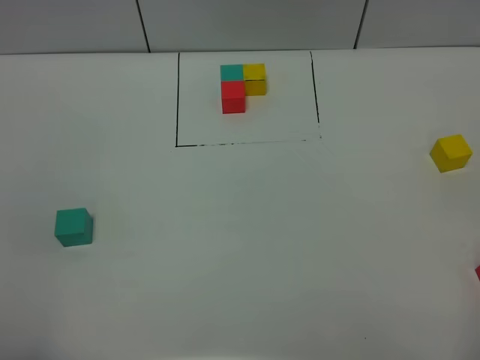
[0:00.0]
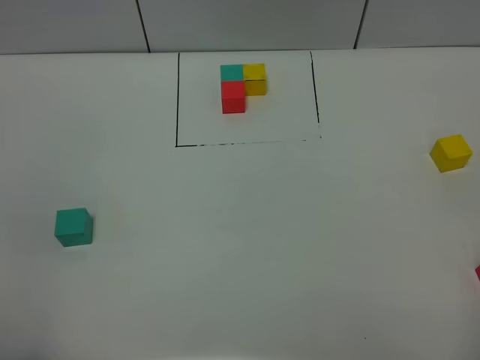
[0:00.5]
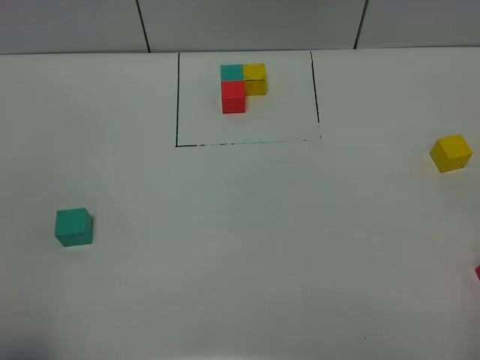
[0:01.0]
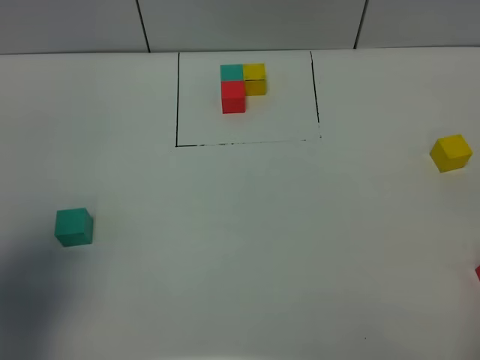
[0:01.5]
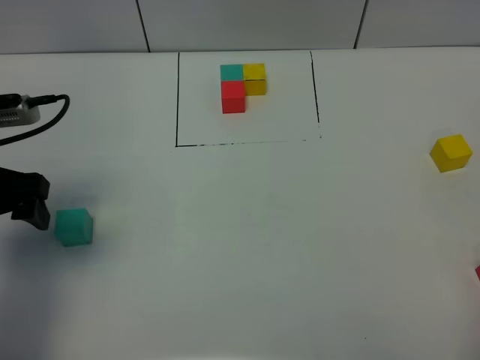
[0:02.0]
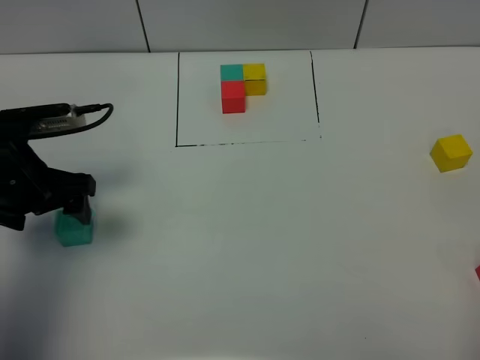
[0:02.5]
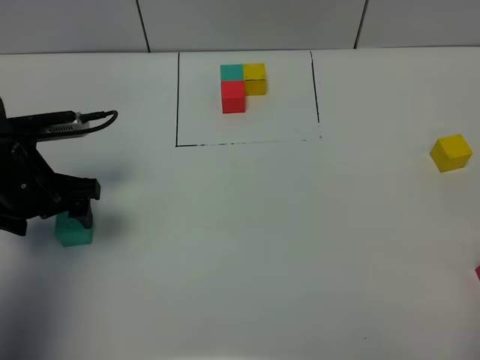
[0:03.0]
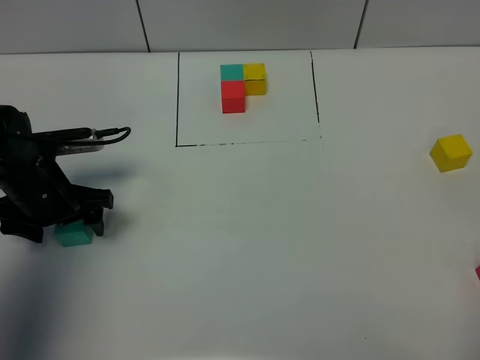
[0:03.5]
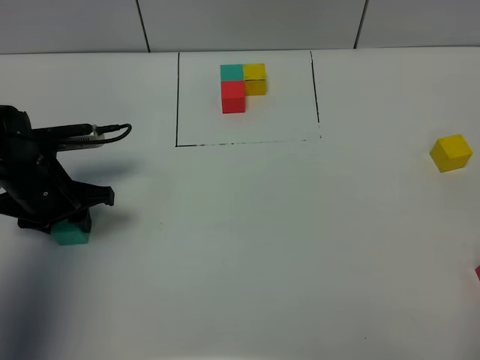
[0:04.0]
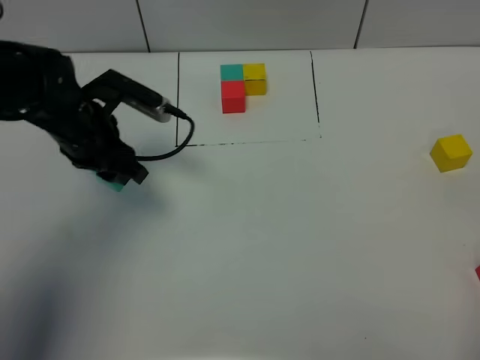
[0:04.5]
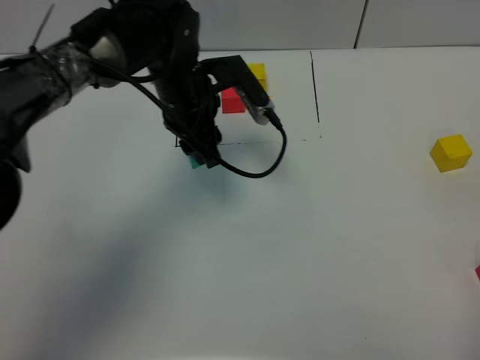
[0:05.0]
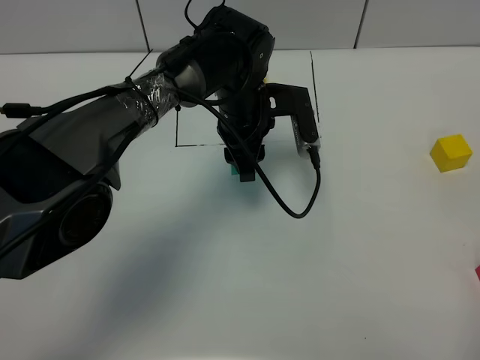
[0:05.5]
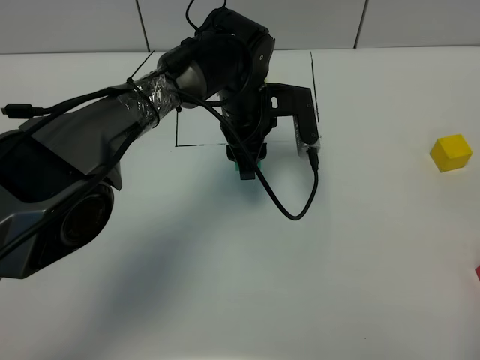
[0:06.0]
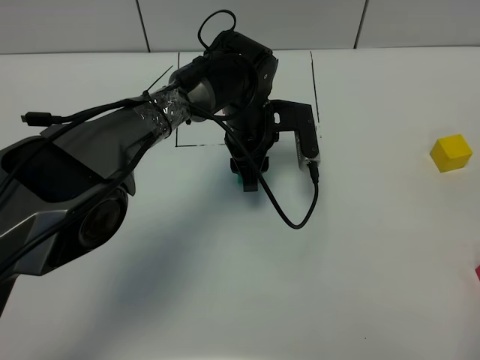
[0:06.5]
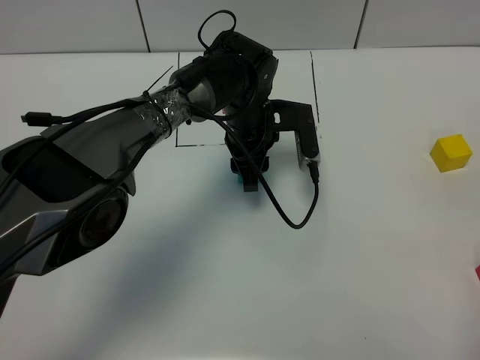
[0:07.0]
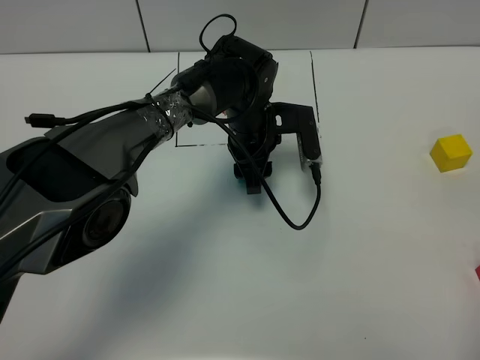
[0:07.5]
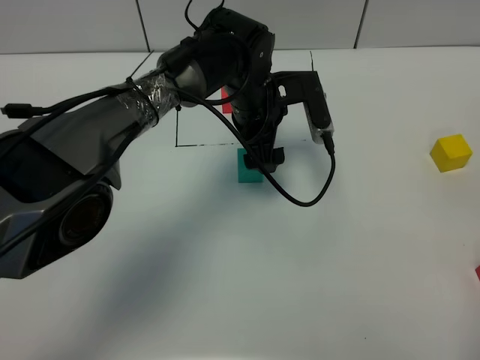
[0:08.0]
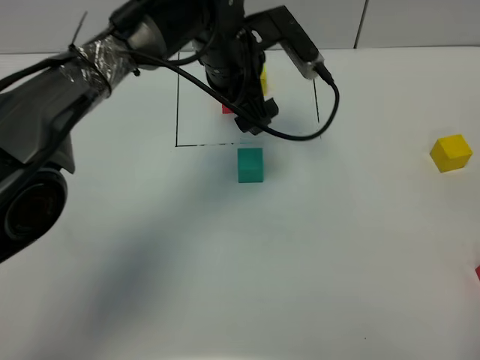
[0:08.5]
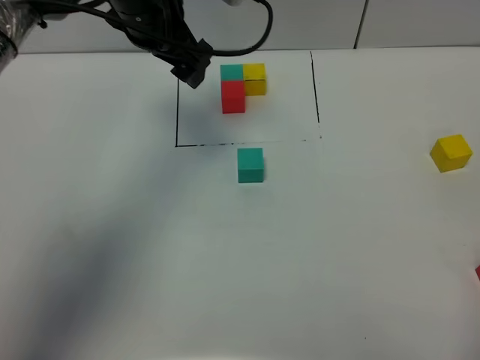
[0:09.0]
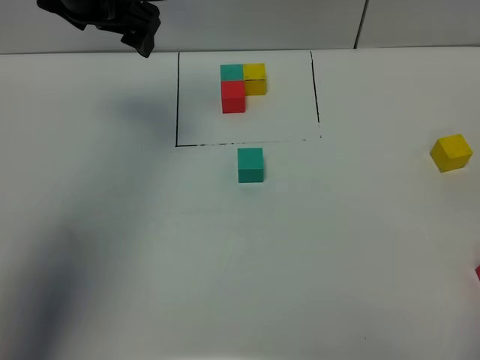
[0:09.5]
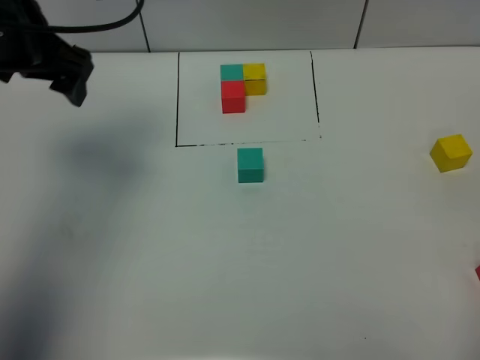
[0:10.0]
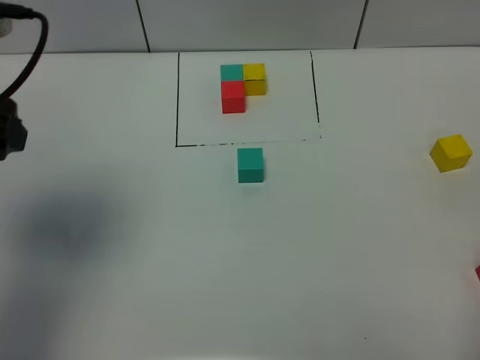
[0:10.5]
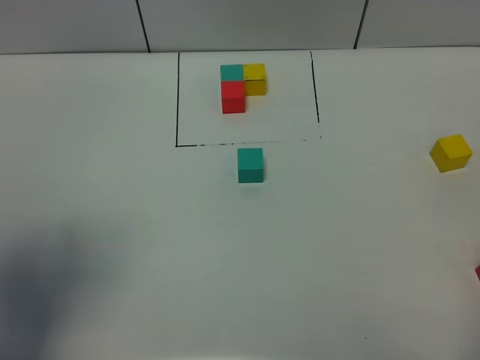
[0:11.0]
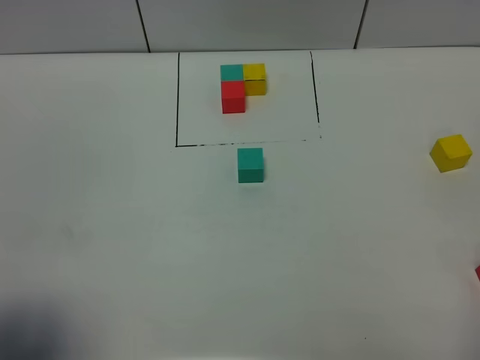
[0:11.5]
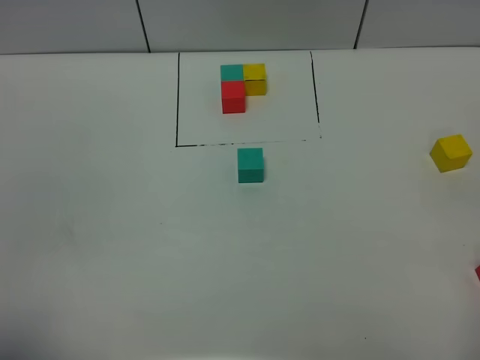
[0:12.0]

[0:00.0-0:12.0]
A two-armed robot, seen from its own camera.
Task of the whole recording: According to the building block template in front, assemble the scattered blocks together.
Step, 0:00.0 to 0:07.5: Put the green build block in the center of the table.
0:00.0 to 0:02.0: The left gripper heads forward, covering some 25 cm.
0:02.0 to 0:04.0: The left gripper heads downward and forward, covering about 10 cm, and closes.
0:04.0 to 0:06.0: The left gripper heads to the right, covering some 25 cm.
0:06.0 to 0:08.0: The left gripper opens up.
0:08.0 to 0:10.0: The left gripper travels to the left and upward by roughly 30 cm.
0:10.0 to 0:12.0: The left gripper travels backward by roughly 35 cm.

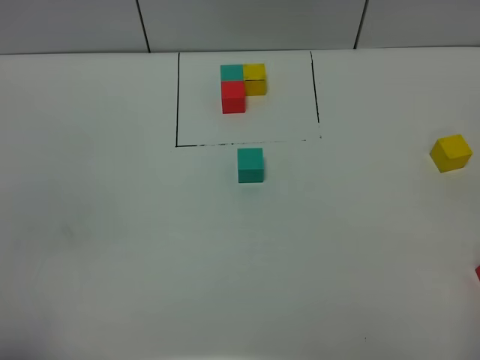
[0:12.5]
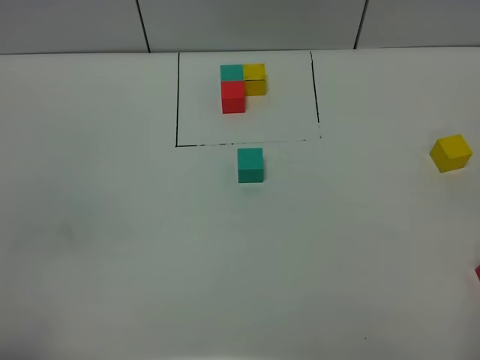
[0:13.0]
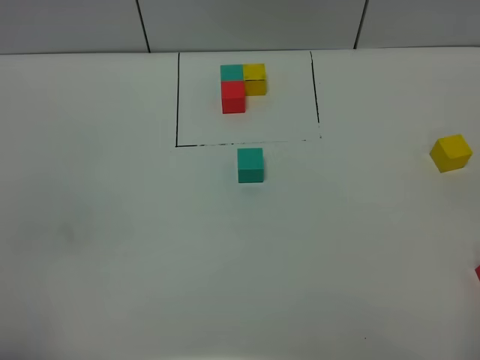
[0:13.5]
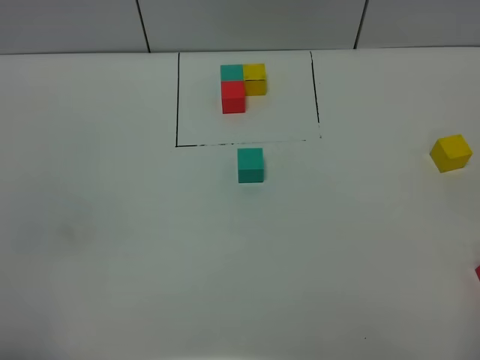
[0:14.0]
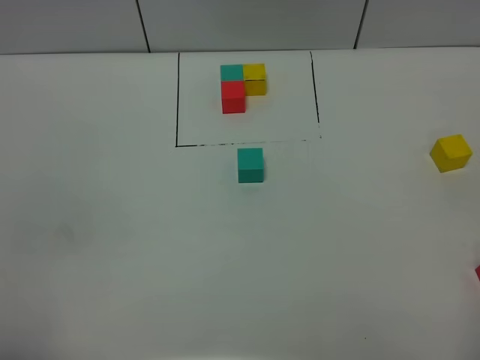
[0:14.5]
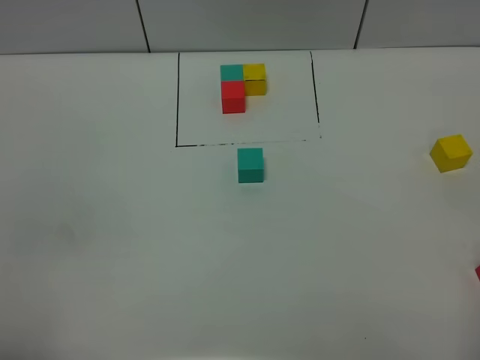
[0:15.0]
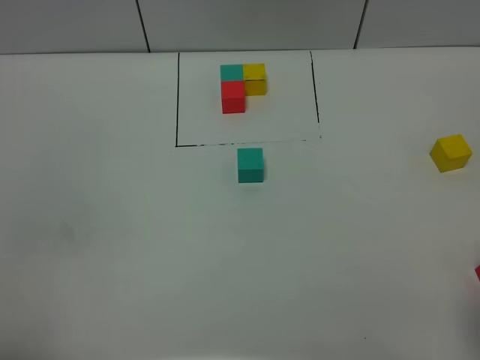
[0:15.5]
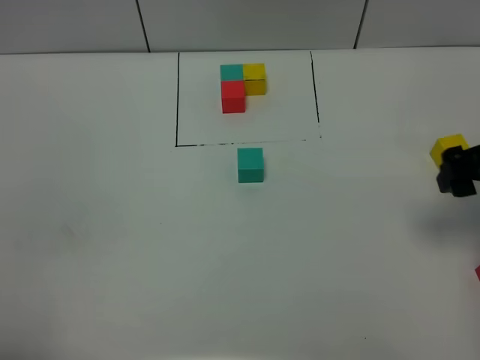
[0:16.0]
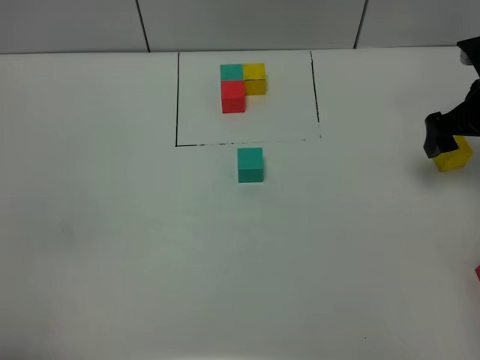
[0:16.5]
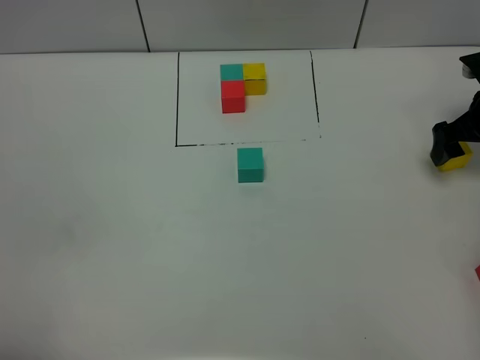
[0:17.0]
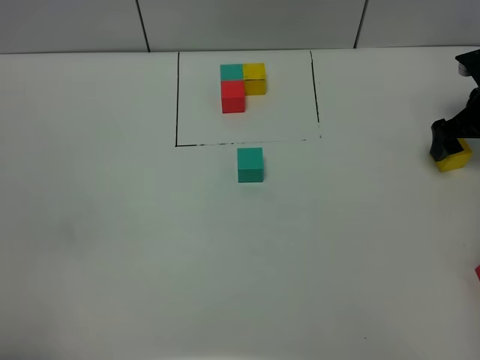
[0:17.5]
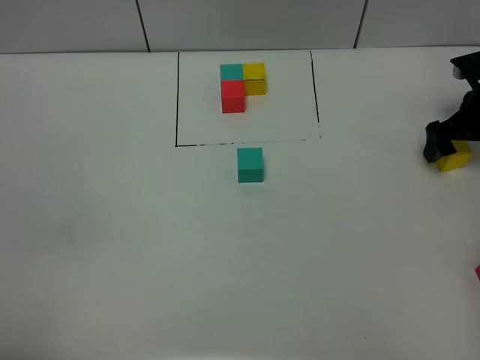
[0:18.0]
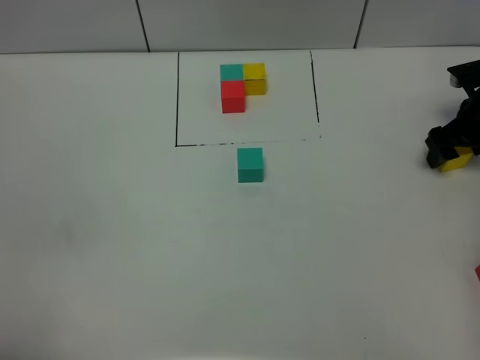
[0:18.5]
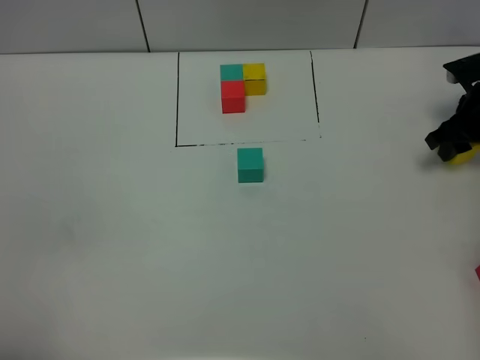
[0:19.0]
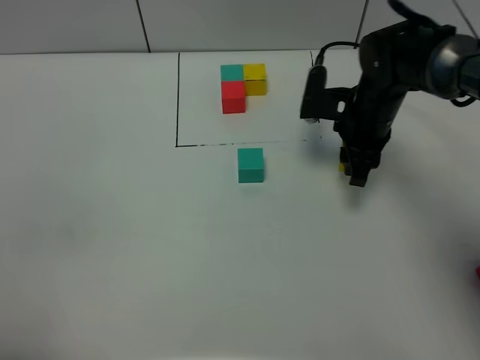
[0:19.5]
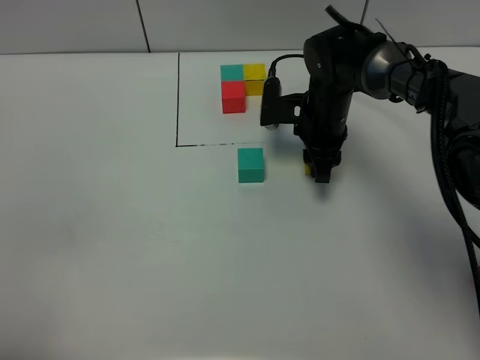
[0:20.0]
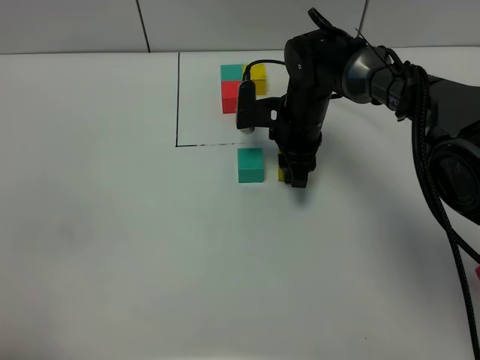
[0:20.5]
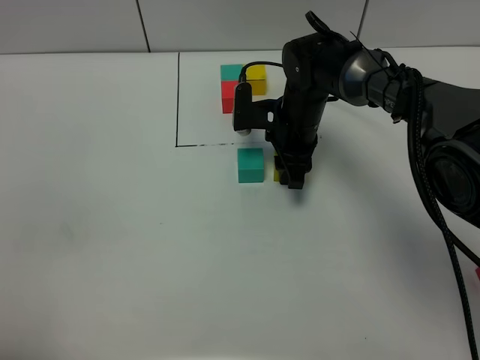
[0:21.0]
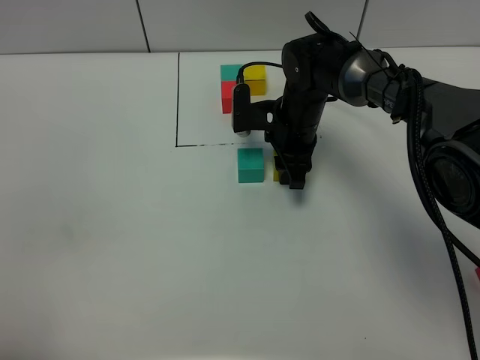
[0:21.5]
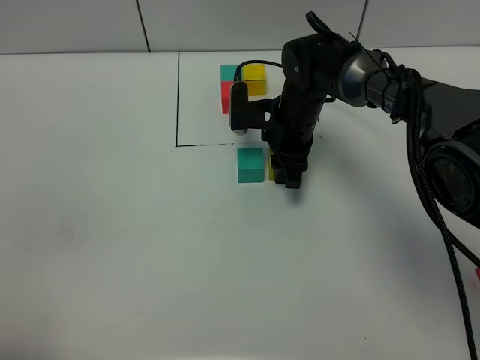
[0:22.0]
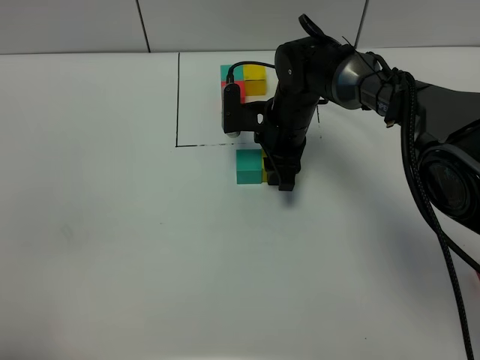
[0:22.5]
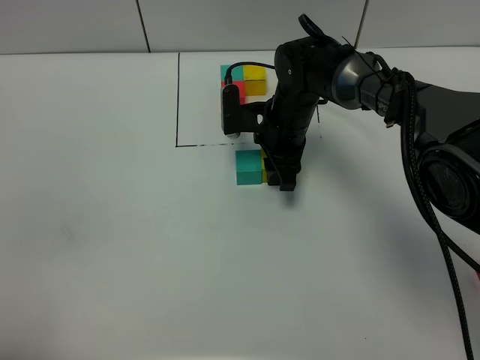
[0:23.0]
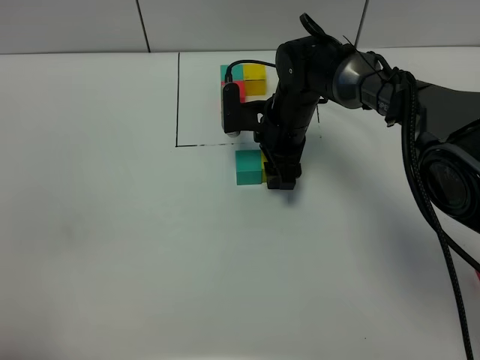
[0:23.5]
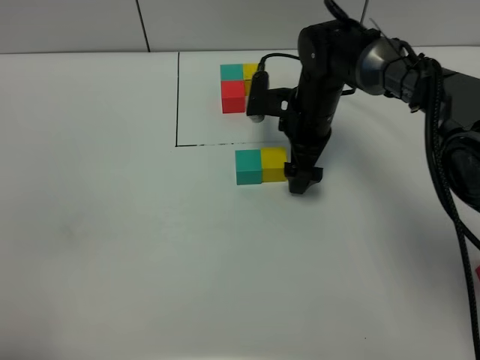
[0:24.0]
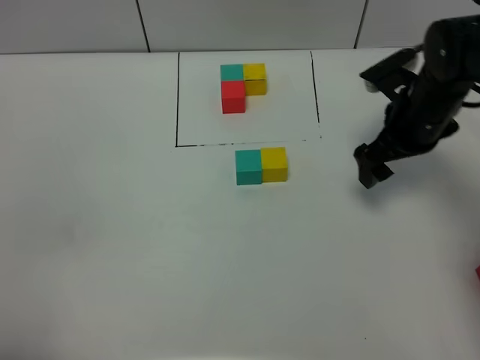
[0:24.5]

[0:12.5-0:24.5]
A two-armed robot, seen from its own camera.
Task of the whole recording: According to the building block template in front, assemble the scattered blocks together.
Step, 0:12.5 to 0:23.5: Put the yellow build block on the right of the green build block.
0:12.5 to 0:14.5: Both grippers stay about where they are.
0:14.5 to 0:16.5: The right gripper heads forward, covering approximately 40 cm.
0:16.5 to 0:18.5: The right gripper is displaced downward by some 10 cm, and closes.
0:18.5 to 0:20.5: The right gripper shifts some 25 cm to the left, and closes up.
0:20.5 to 0:22.5: The grippers stay close to where they were, moving slightly.
0:22.5 to 0:24.5: The right gripper heads to the right and backward, covering roughly 20 cm, and opens.

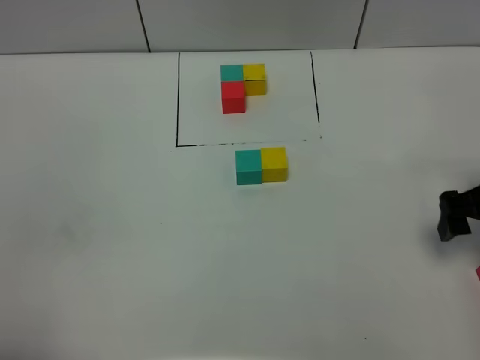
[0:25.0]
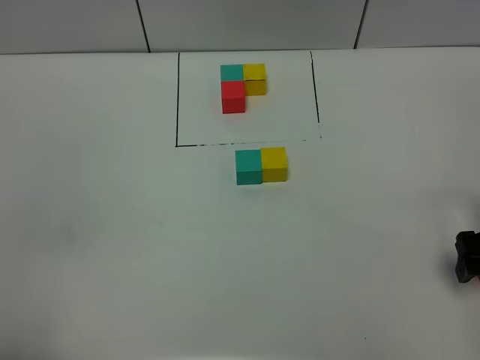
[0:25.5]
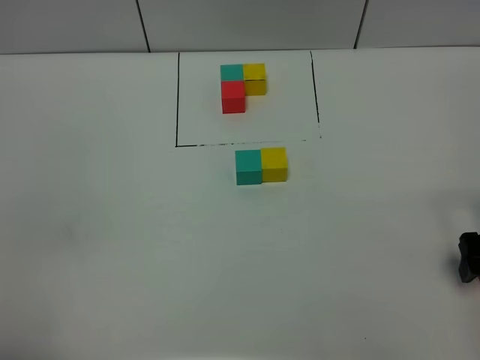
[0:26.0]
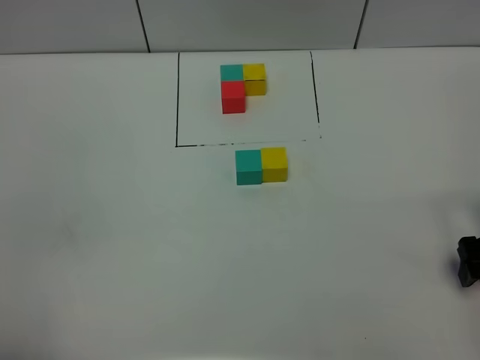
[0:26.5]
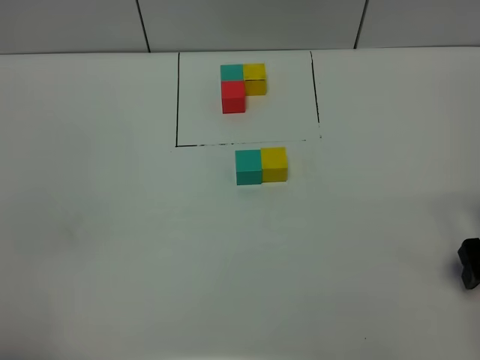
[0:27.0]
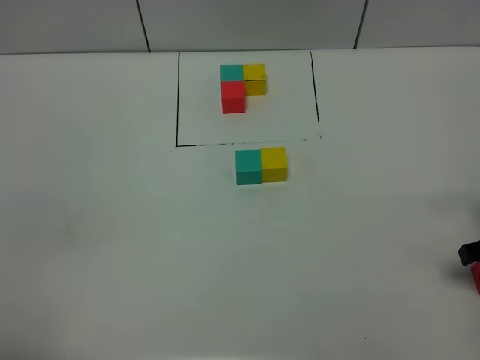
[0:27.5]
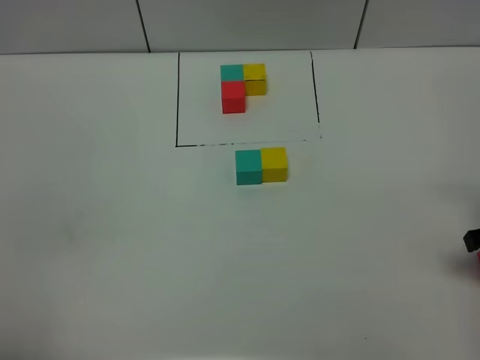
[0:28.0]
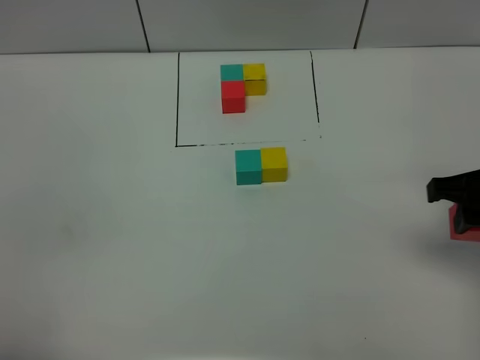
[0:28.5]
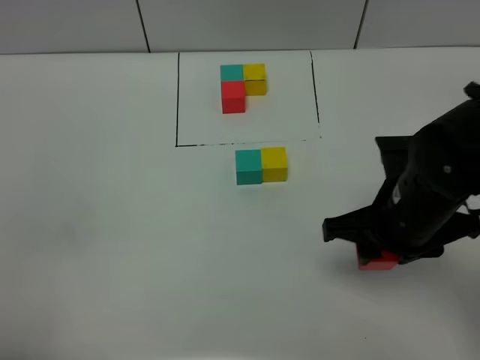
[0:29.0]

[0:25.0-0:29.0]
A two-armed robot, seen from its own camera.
Task of the whole recording: According to the building block template in front, assemble the scattered blocks together.
0:25.0 to 0:27.0: The right gripper changes place by roughly 5 cm.
0:27.0 to 0:29.0: The right gripper is displaced to the left by approximately 20 cm, and closes.
